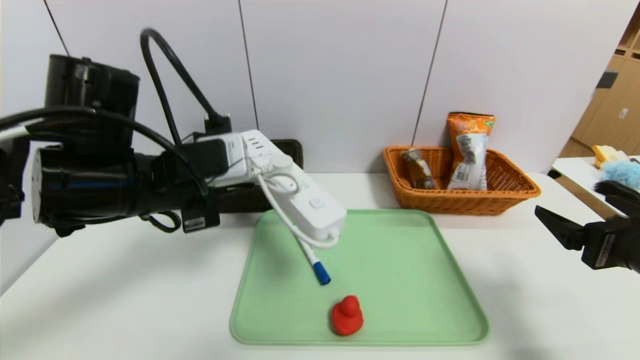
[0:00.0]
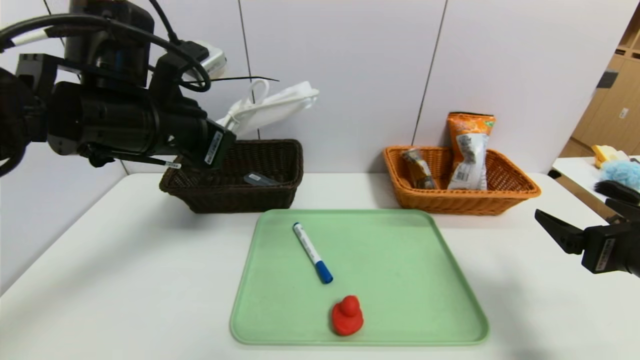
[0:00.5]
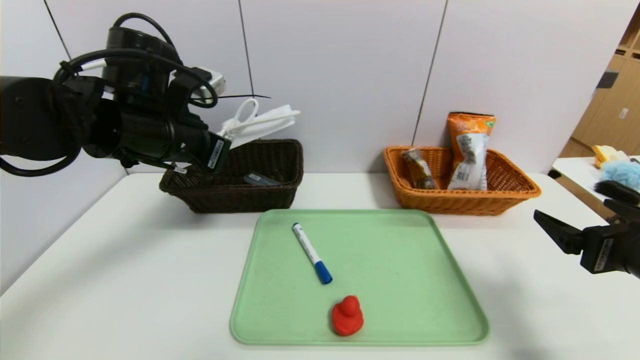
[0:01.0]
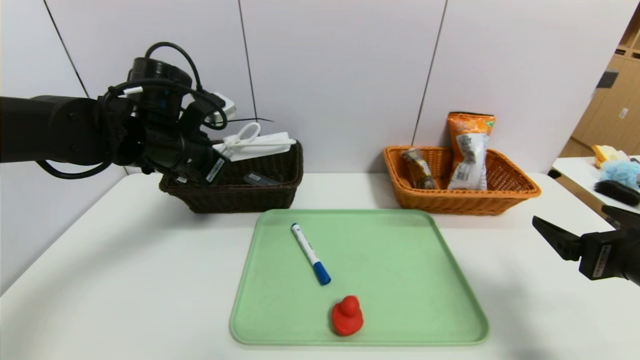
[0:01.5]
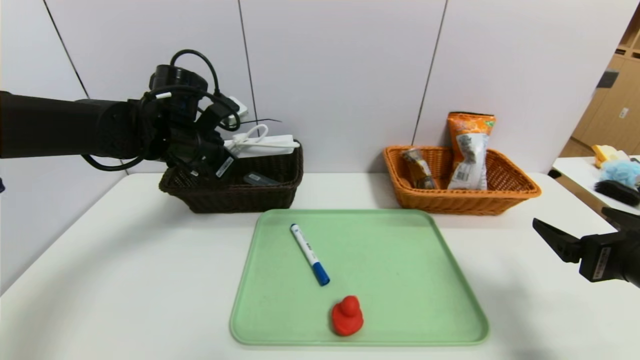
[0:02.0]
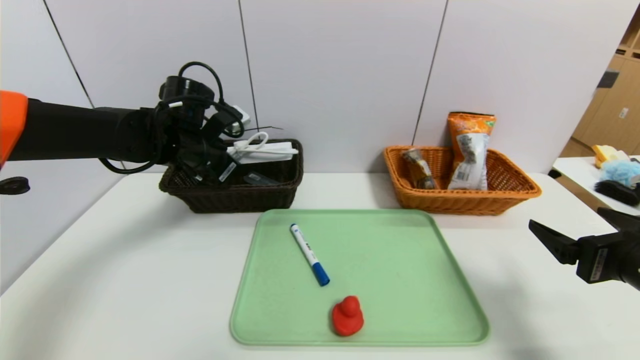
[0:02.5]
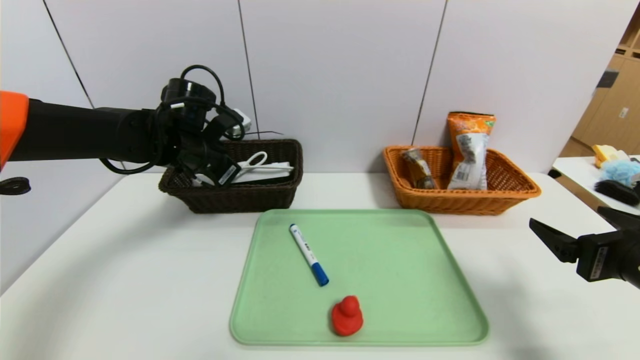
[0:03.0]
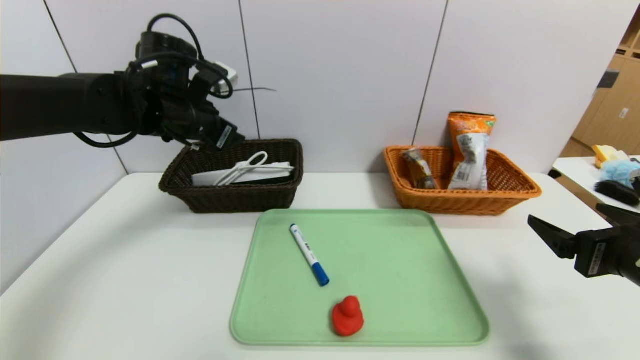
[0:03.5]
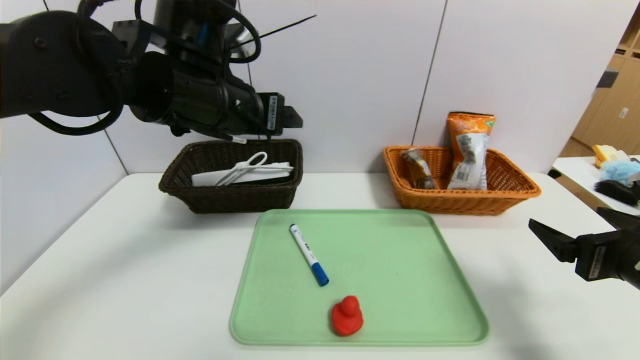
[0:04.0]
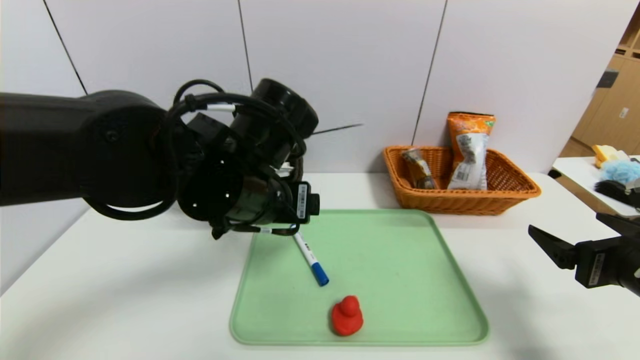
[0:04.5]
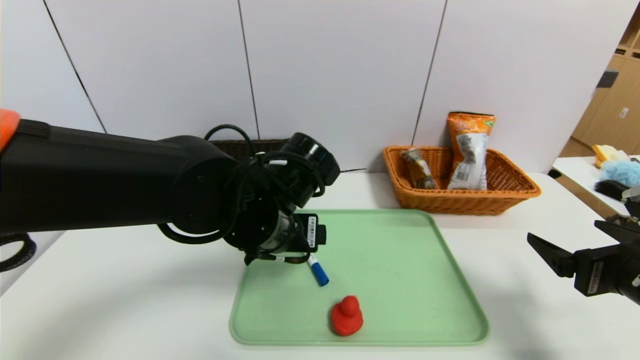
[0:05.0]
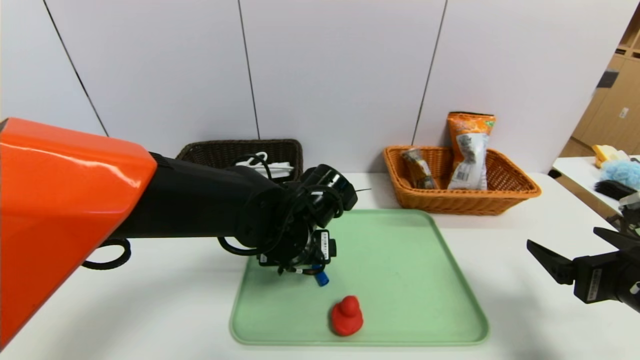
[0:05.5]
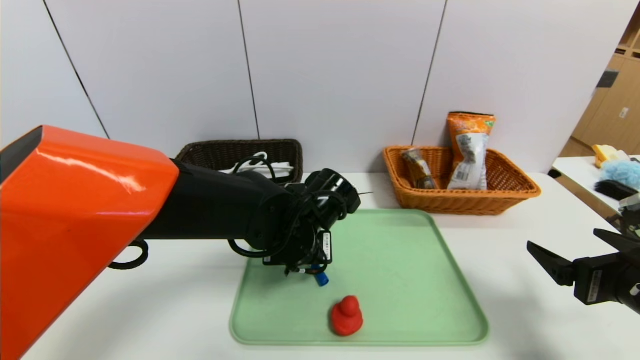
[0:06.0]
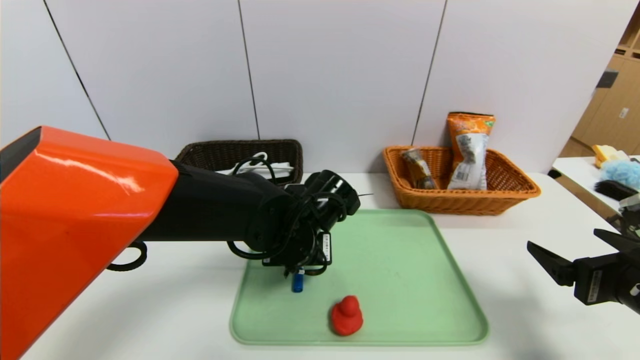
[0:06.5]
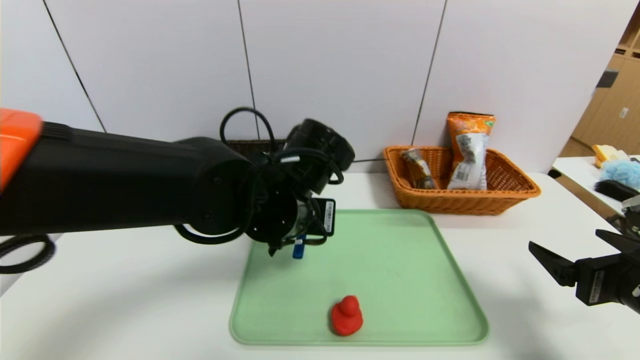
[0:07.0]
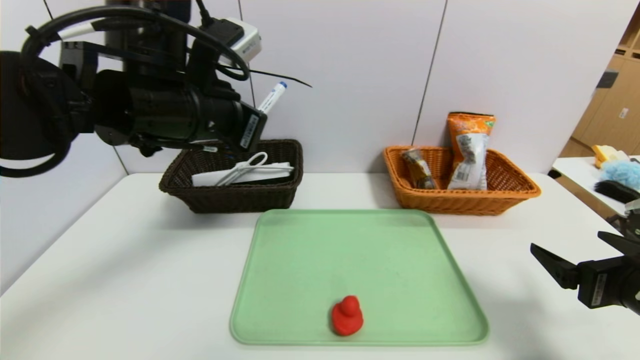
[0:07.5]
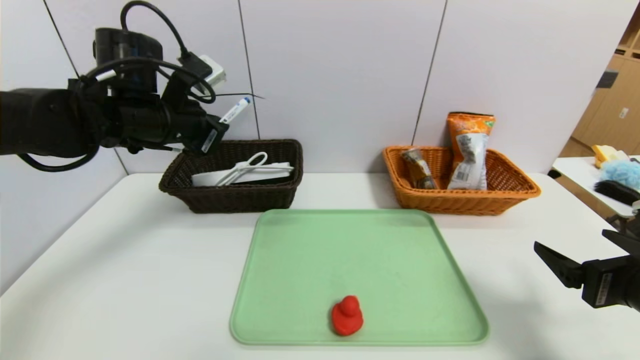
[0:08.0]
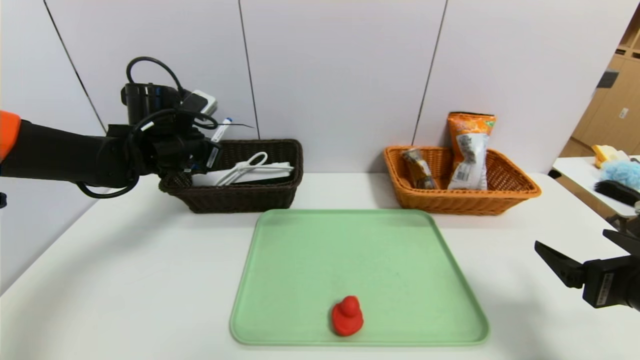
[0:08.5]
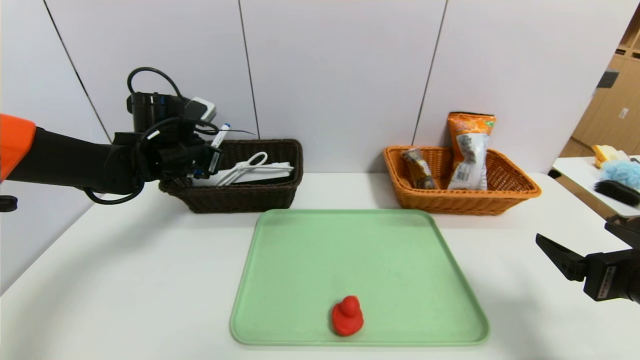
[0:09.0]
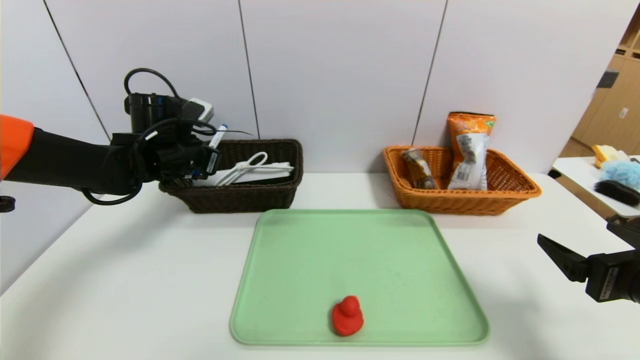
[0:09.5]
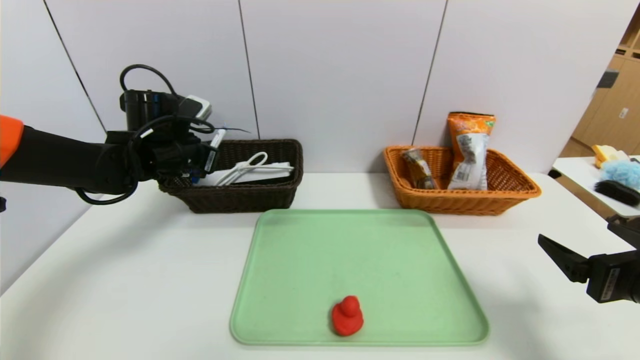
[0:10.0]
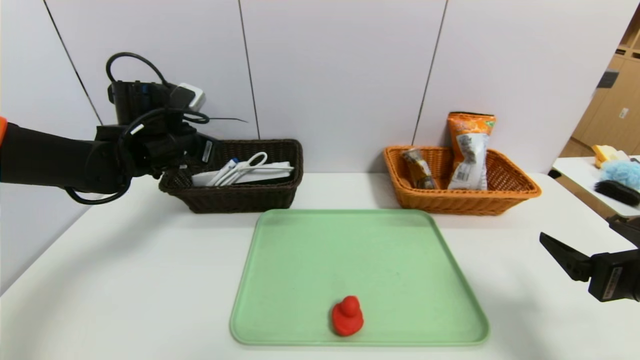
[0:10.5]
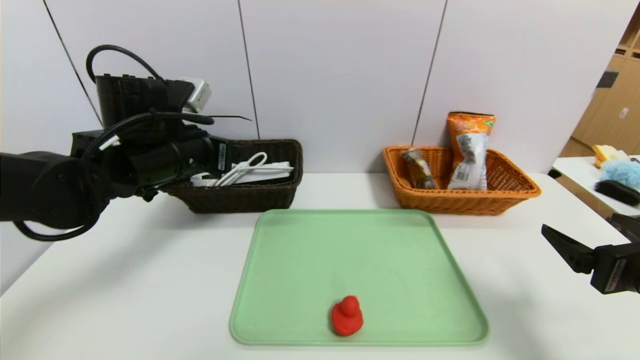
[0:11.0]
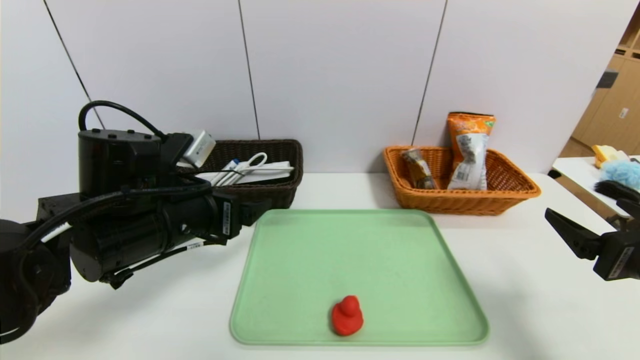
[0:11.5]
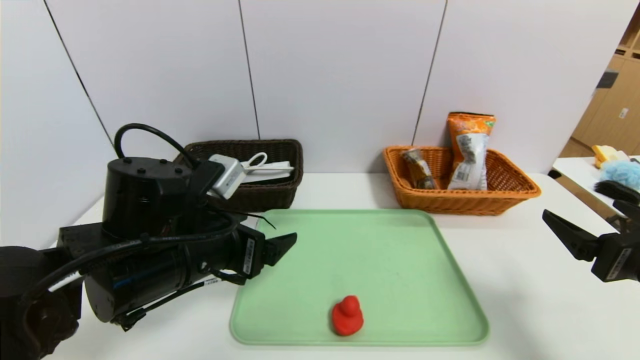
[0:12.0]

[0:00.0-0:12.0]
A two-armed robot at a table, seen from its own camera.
Task of the whole recording: place the food in the right basket with the right gripper, and place the non food items in the left basket with the left gripper.
Step, 0:00.0 to 0:03.5: Grasp the power strip and put it in the left basket.
Step, 0:04.0 to 0:10.5: Grasp the blue marker and put it in the left basket.
0:00.0 to 0:02.0: The left gripper moves forward, some 15 cm.
0:02.0 to 0:04.0: The left gripper is displaced backward, to the right and upward by about 15 cm, and opens its fingers.
0:04.0 to 0:06.0: The left gripper goes about 20 cm downward and to the right, and closes.
0:06.0 to 0:08.0: The left gripper shifts approximately 25 cm to the left and upward, and closes its fingers.
0:08.0 to 0:10.0: The left gripper moves downward, about 5 cm.
0:10.0 to 0:12.0: The left gripper travels backward and to the right by some 20 cm, and opens.

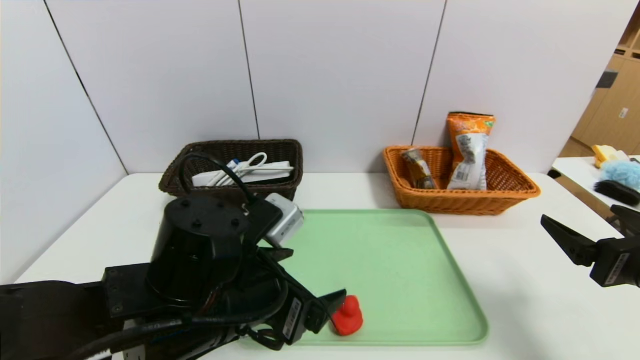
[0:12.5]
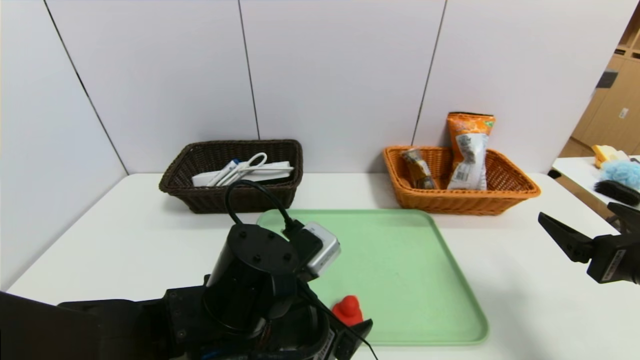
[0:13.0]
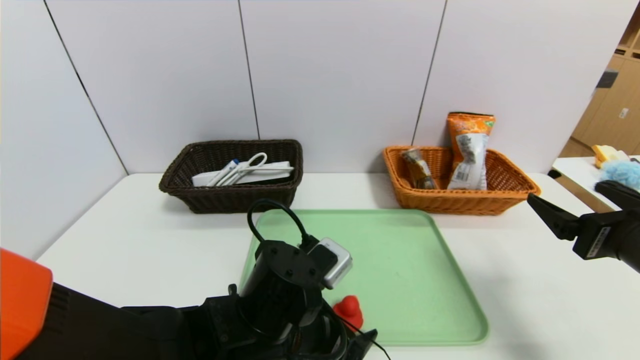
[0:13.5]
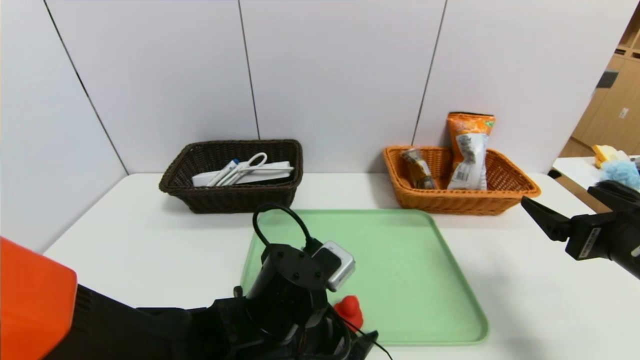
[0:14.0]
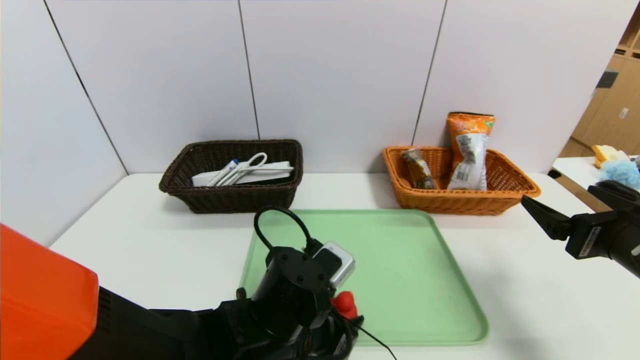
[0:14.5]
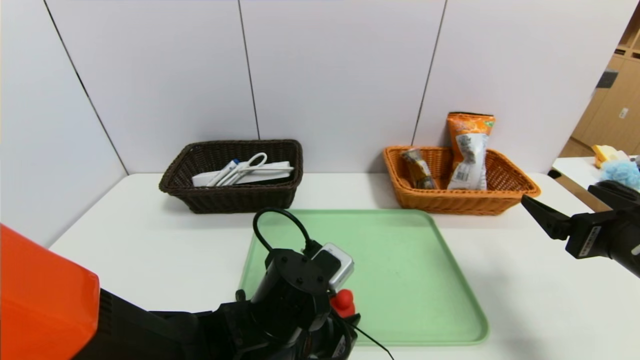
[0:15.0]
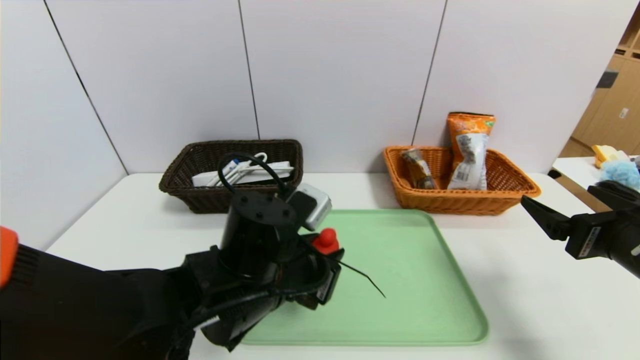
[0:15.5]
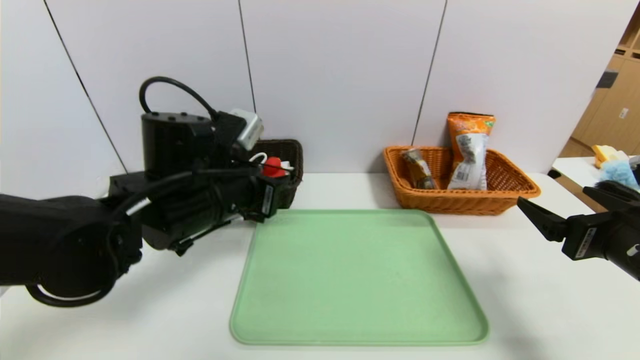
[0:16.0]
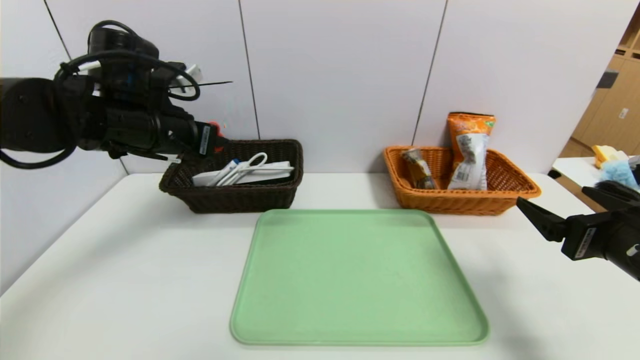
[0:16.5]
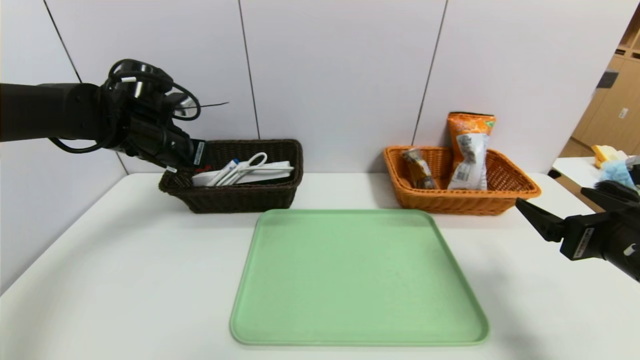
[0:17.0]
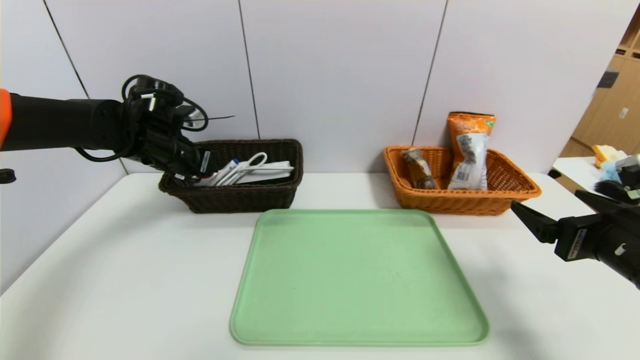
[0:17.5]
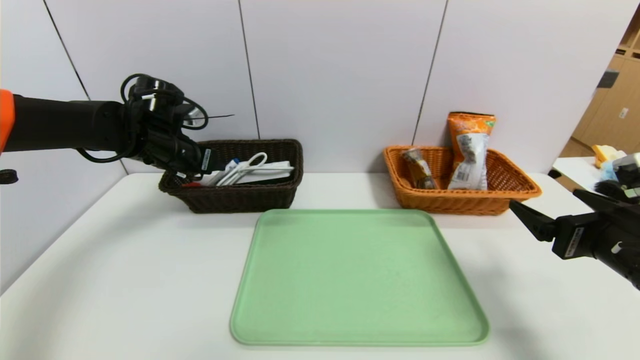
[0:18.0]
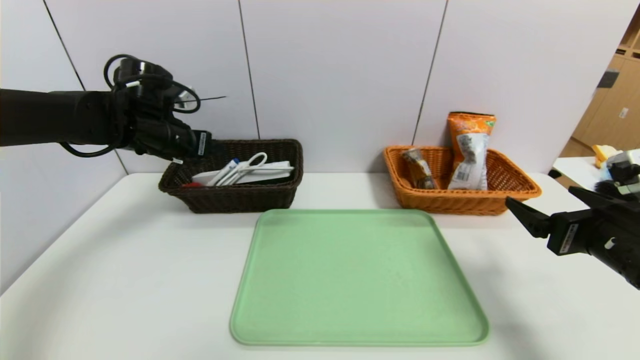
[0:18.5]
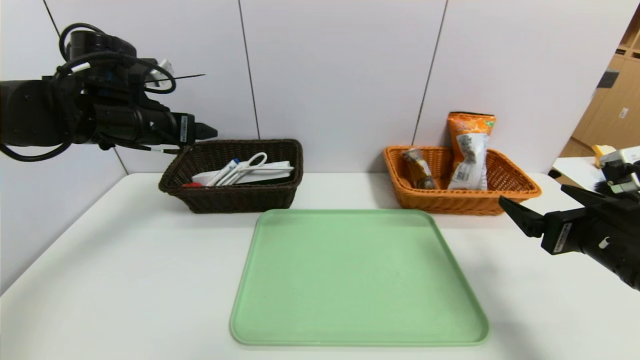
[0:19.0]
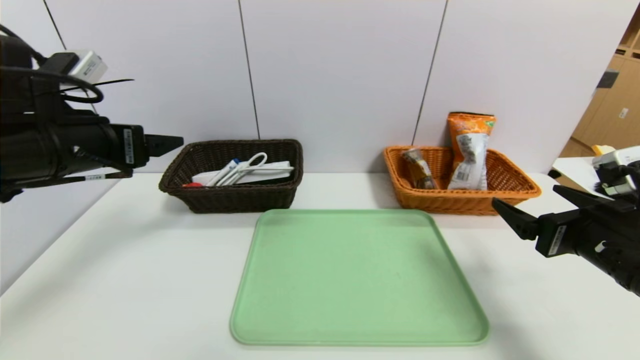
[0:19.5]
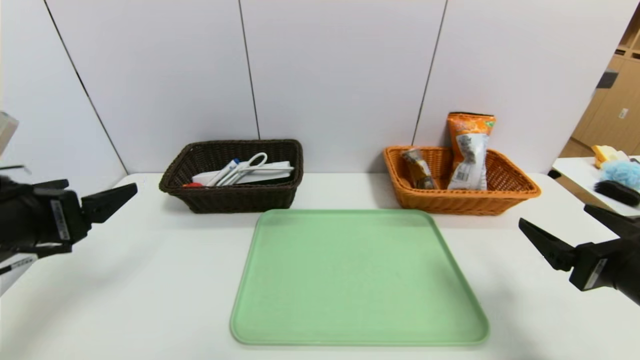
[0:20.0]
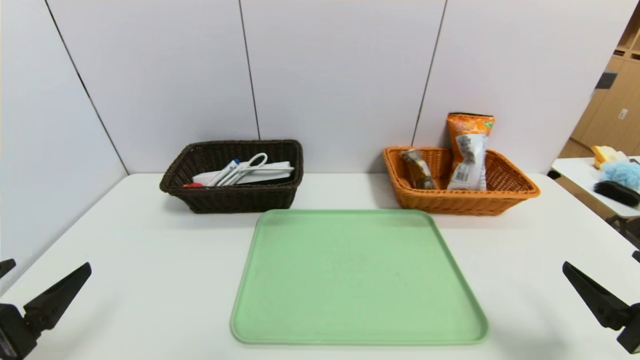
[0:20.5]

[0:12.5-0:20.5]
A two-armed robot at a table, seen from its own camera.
Task of the whole recording: place the food in the right basket with the right gripper, and place the non food items in the left basket with the left gripper.
Step, 0:12.5 to 0:18.5: Grasp the red duck and put it in the left basket.
0:12.5 to 0:14.5: The left gripper goes about 10 cm downward and to the right, and closes up.
0:14.5 to 0:16.5: The left gripper moves upward, to the left and forward, roughly 30 cm.
0:16.5 to 0:18.5: The left gripper travels forward by approximately 5 cm, and opens its fingers.
0:18.5 to 0:20.5: The left gripper is displaced backward by roughly 30 cm, while the right gripper moves backward, roughly 10 cm.
